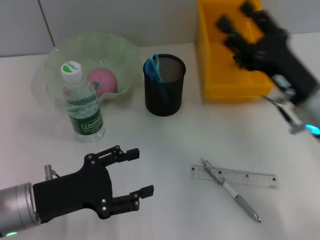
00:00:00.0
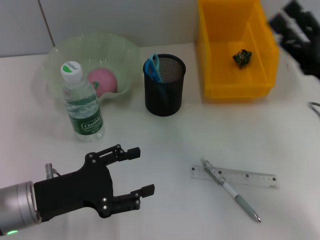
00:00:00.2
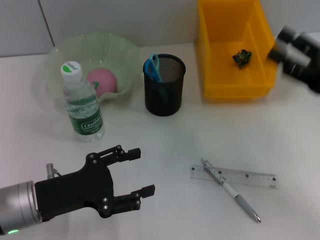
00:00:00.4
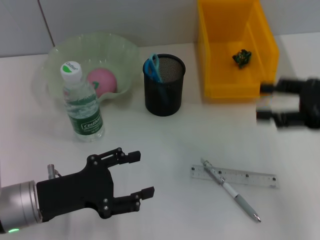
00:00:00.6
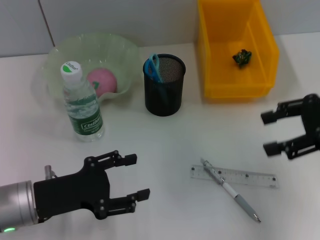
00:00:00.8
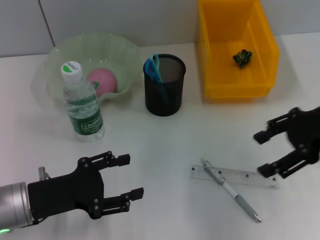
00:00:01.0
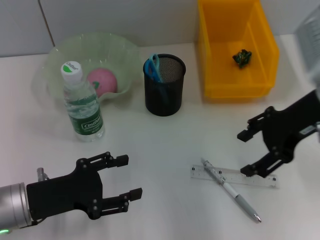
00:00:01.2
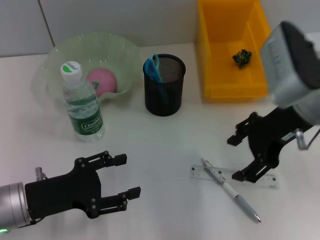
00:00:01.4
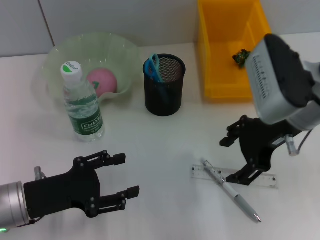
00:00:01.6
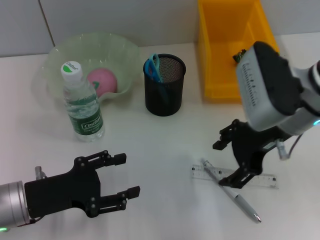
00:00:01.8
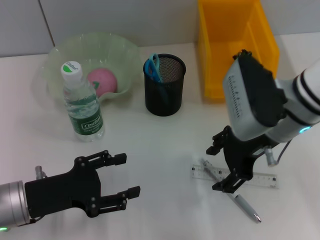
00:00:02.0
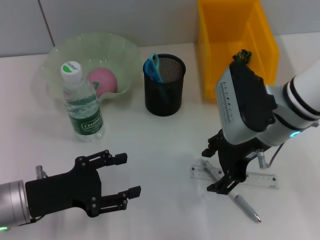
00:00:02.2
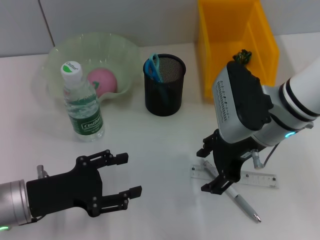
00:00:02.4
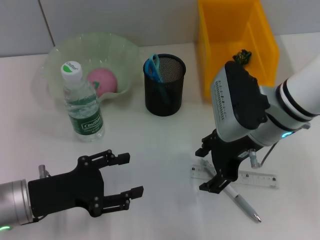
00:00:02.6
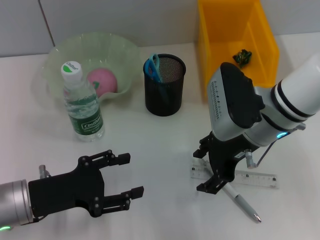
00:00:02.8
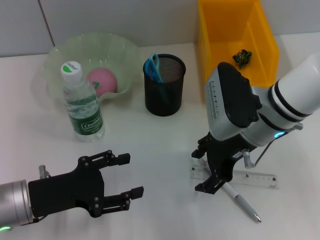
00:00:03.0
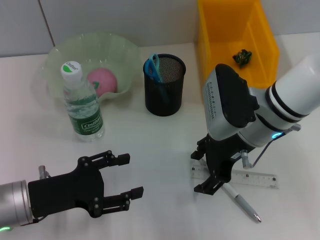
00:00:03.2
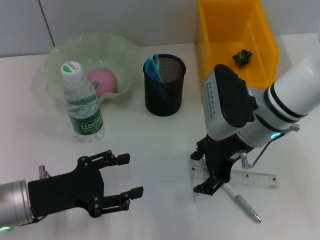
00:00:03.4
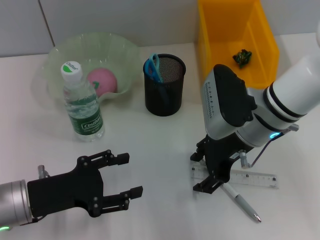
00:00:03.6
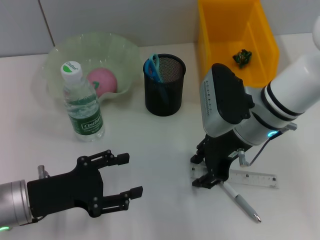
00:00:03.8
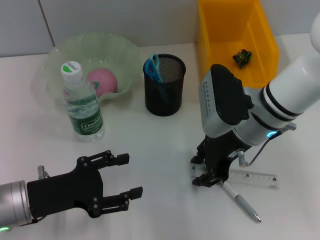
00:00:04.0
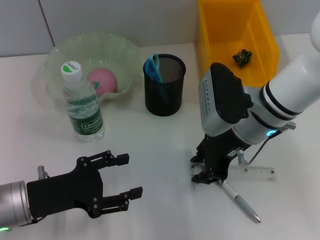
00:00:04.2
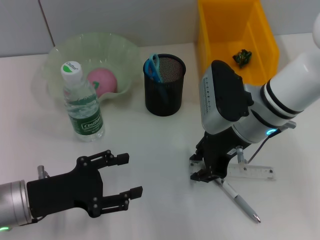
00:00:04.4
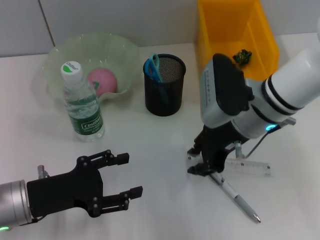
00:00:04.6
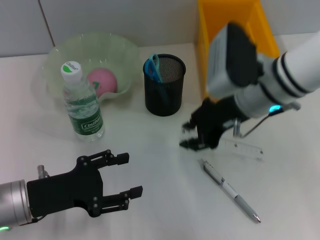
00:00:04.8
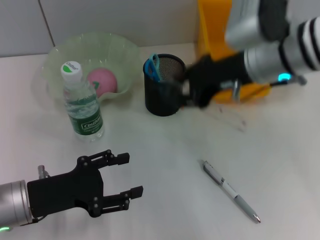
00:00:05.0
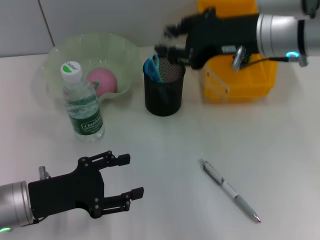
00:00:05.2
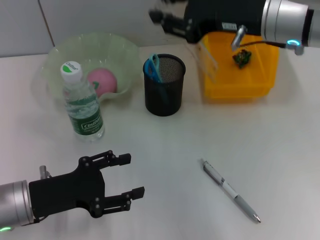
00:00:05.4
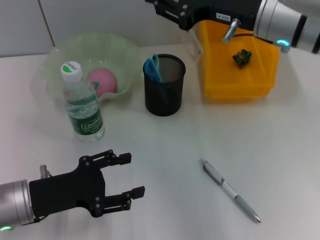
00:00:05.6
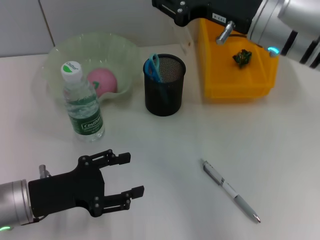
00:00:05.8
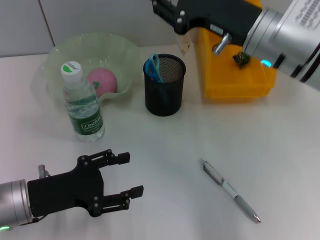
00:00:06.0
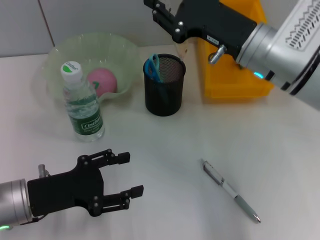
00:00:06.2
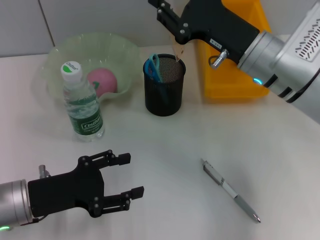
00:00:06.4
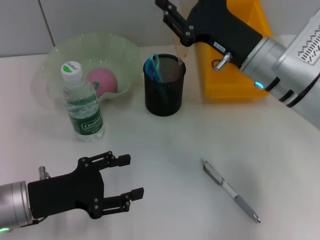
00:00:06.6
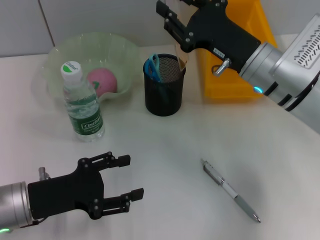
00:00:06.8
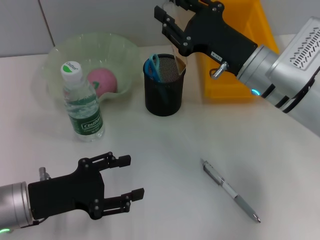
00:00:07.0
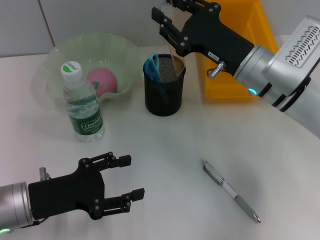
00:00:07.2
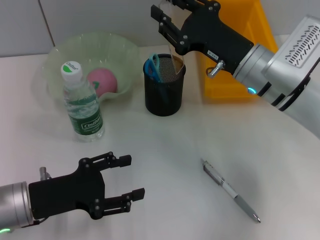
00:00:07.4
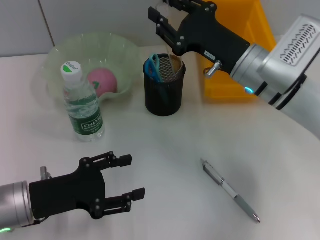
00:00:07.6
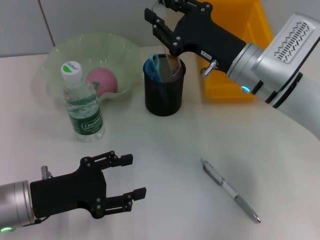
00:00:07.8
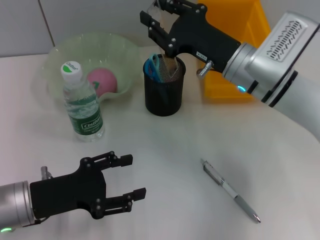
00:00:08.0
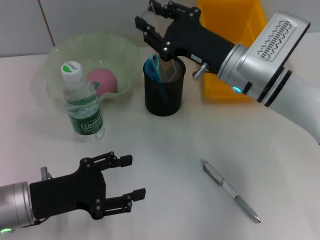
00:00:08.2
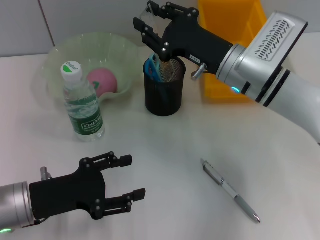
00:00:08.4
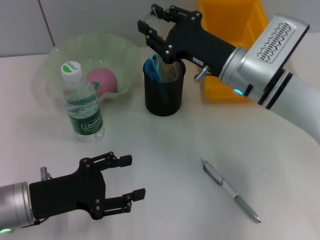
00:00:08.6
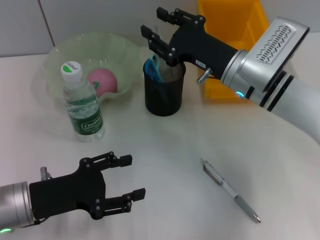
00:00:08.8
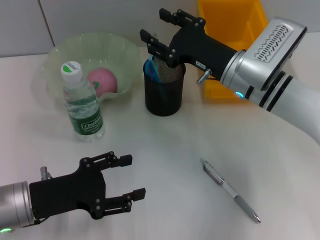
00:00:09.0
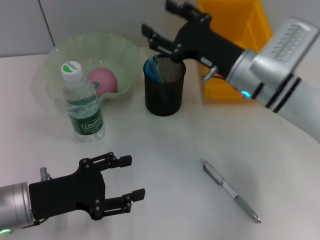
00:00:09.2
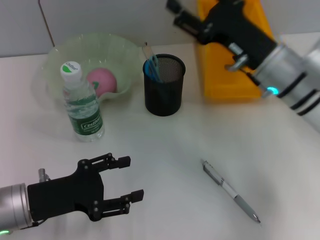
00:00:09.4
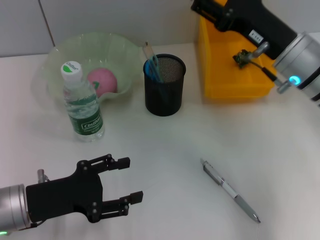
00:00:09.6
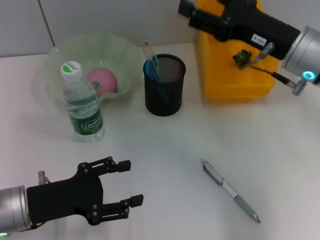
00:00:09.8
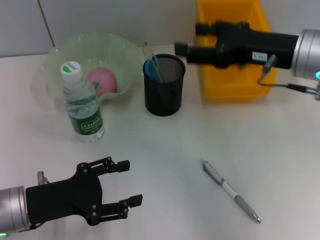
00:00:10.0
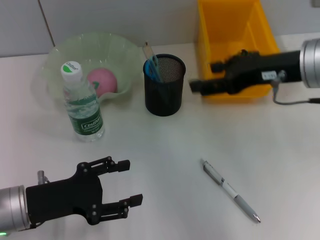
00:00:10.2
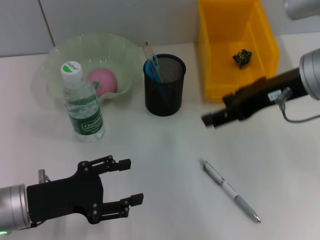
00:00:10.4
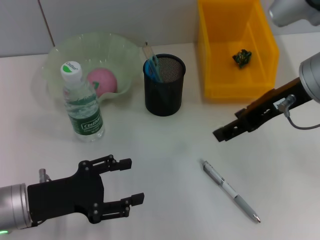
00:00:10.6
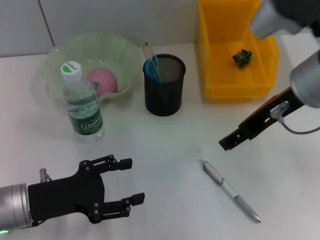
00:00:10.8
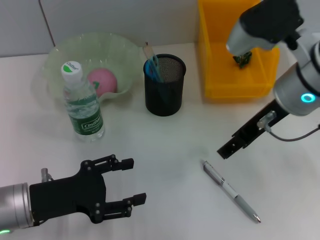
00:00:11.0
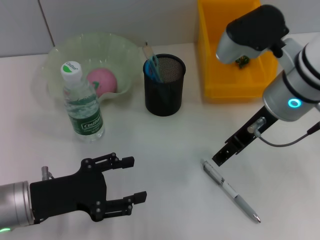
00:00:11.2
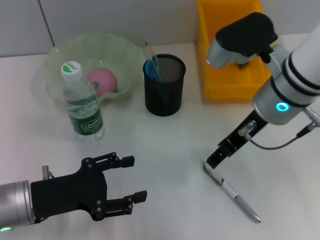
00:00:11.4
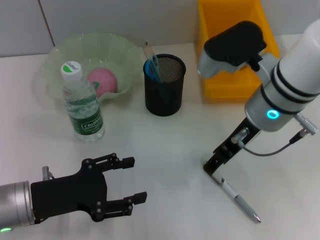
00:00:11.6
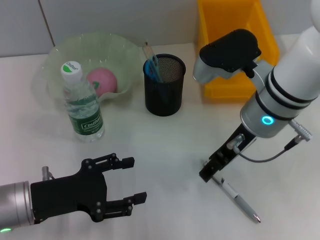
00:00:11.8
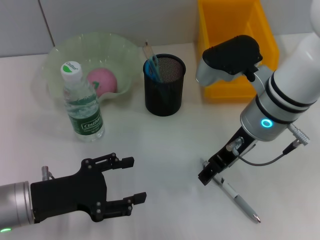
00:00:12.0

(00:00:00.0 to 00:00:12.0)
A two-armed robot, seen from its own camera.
Step, 00:00:00.0 - 00:00:04.6: Grab the ruler with the right hand.
Step, 00:00:04.8 - 00:00:09.6: Place the ruler into the pen holder with the right hand.
00:00:00.0 - 00:00:01.6: The right gripper travels upward by about 10 cm, and reaches about 10 cm to the right, then returns.
00:00:01.6 - 00:00:03.0: The right gripper is displaced downward by about 5 cm.
00:00:03.0 - 00:00:04.4: The right gripper closes up.
00:00:04.4 - 00:00:06.0: The right gripper heads upward, covering about 5 cm.
00:00:06.0 - 00:00:07.6: The right gripper heads downward, covering roughly 5 cm.
00:00:07.6 - 00:00:09.0: There are only small adjustments of the grippers.
00:00:09.0 - 00:00:10.4: The right gripper moves upward and backward, some 15 cm, and opens up.
00:00:10.4 - 00:00:12.0: The right gripper heads downward and to the left, covering approximately 10 cm.

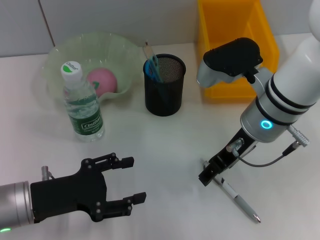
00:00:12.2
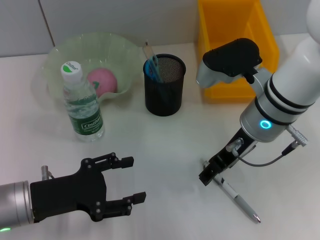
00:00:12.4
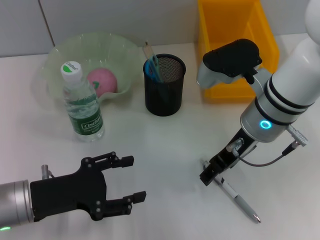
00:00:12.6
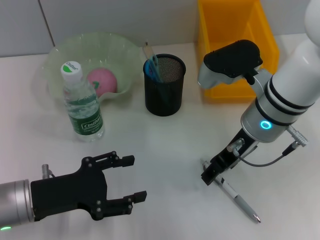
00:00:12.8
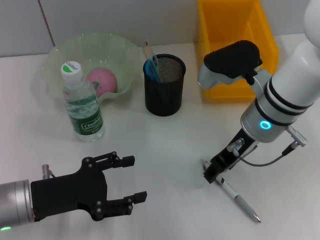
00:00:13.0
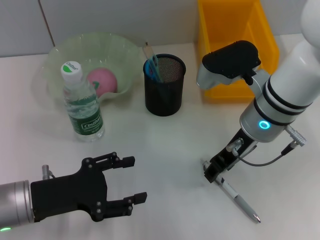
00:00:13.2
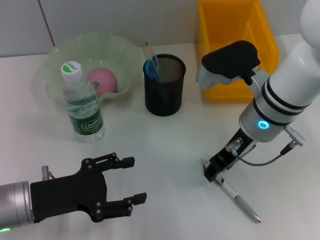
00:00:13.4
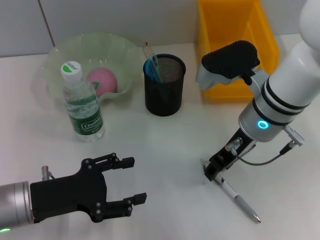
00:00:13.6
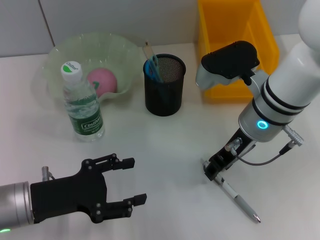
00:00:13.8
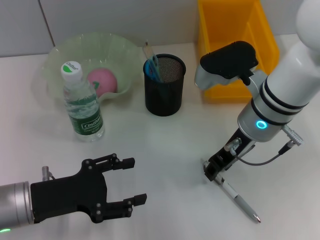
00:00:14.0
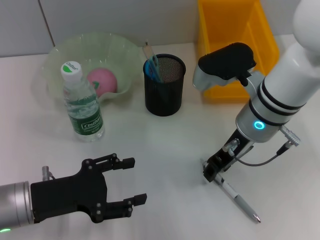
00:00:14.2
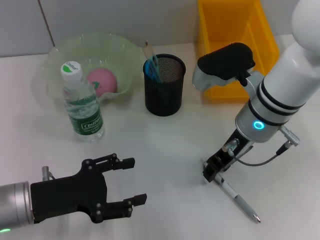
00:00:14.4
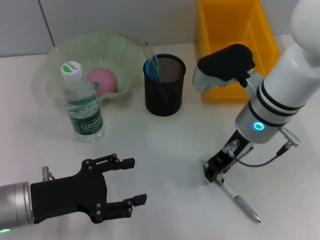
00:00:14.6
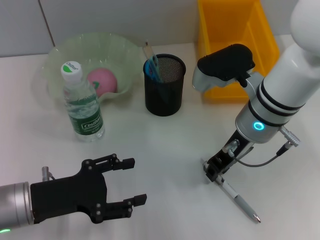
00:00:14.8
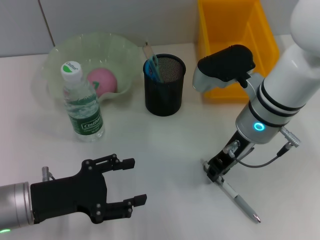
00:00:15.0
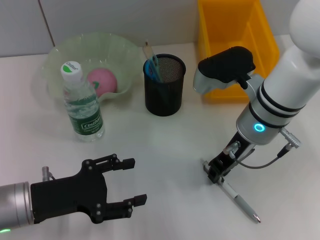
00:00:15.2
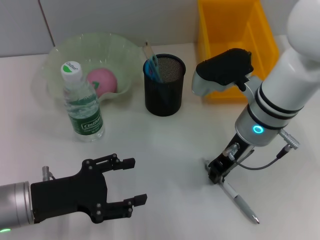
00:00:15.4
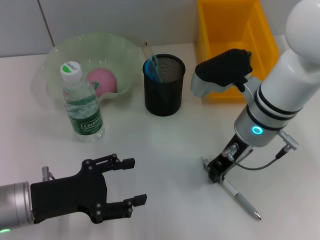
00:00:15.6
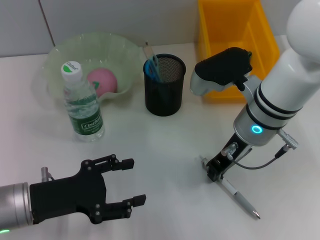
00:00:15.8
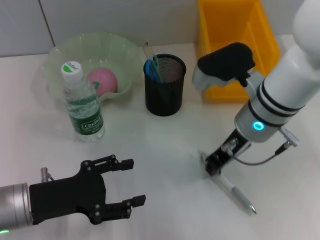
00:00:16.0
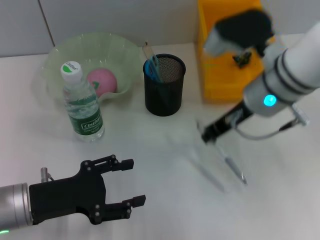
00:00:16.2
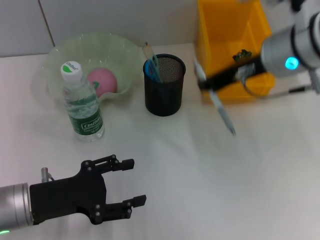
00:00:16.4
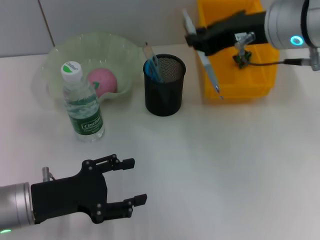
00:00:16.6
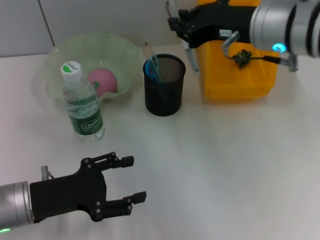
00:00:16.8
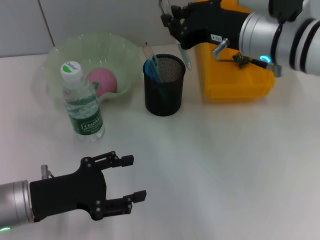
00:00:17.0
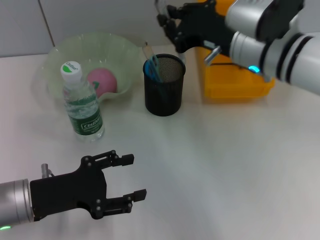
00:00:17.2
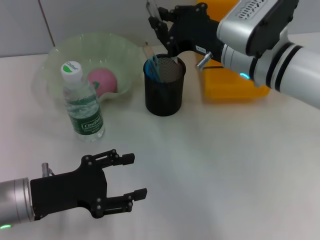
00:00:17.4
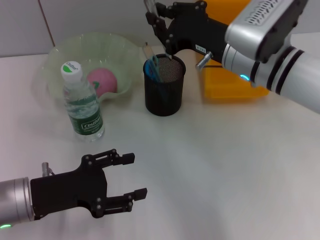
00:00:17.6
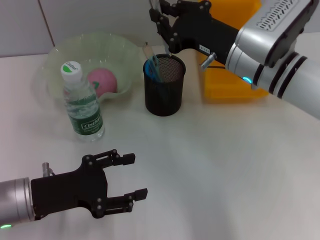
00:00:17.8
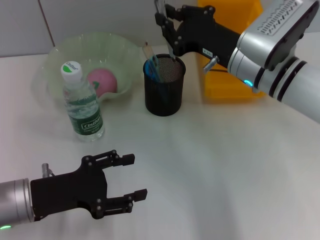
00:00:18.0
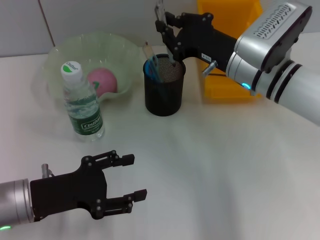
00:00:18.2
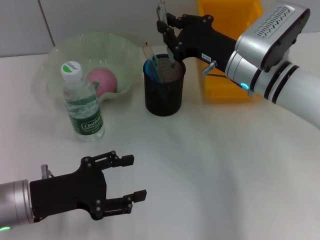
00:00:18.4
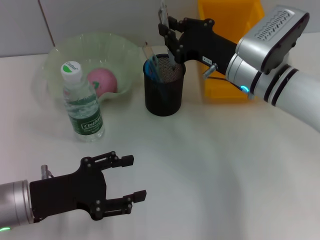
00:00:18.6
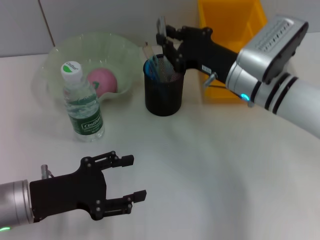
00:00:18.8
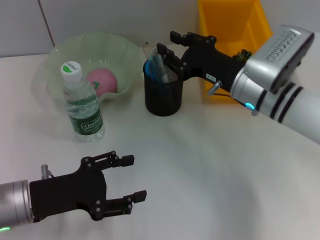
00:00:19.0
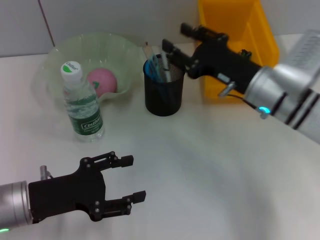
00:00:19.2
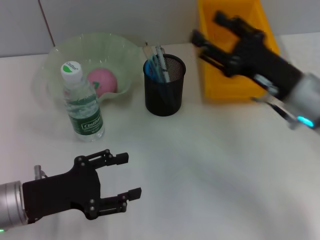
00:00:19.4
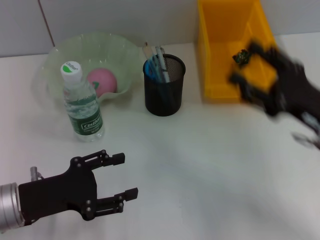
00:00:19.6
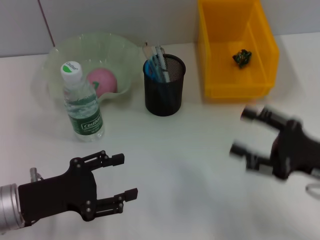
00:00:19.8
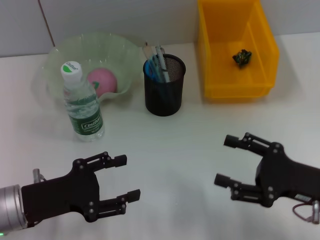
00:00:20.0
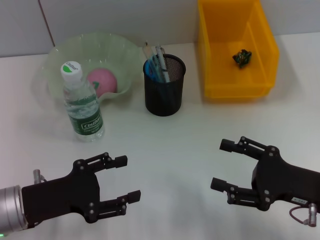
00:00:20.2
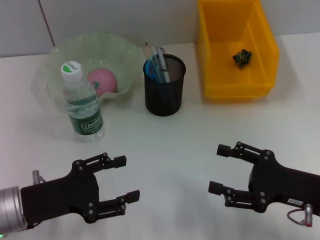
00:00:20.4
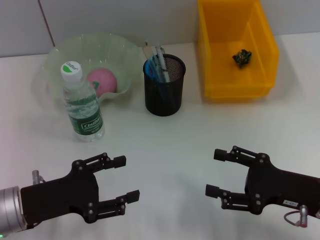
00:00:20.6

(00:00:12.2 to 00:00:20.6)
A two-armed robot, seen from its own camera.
Step, 00:00:12.2 - 00:00:15.2: Grab the gray spring-action pen with the right hand.
Step, 00:00:15.4 - 00:00:19.0: Place the gray spring-action pen into the pen holder with the right hand.
00:00:12.2 - 00:00:13.6: Neither gripper changes place.
00:00:13.6 - 00:00:15.0: Both grippers stay put.
00:00:15.0 - 00:00:16.4: The right gripper heads upward, covering some 10 cm.
00:00:16.4 - 00:00:17.8: The right gripper goes some 5 cm downward.
00:00:17.8 - 00:00:19.2: The right gripper heads downward, covering approximately 5 cm.
00:00:19.2 - 00:00:20.6: The right gripper goes some 15 cm backward, to the right and downward, and opens its fingers.
